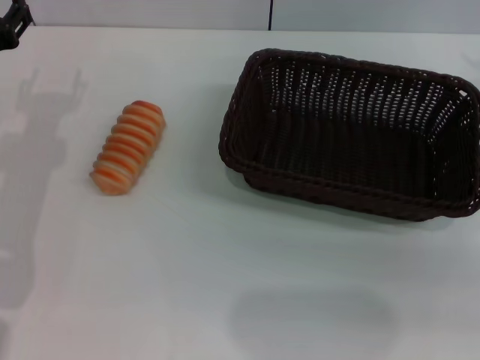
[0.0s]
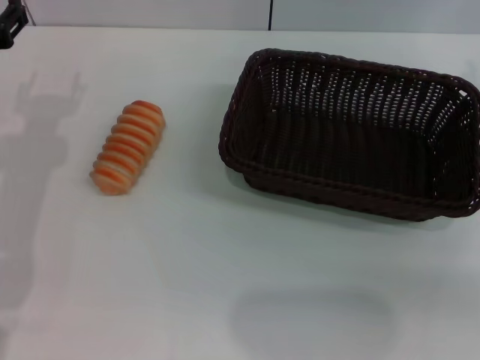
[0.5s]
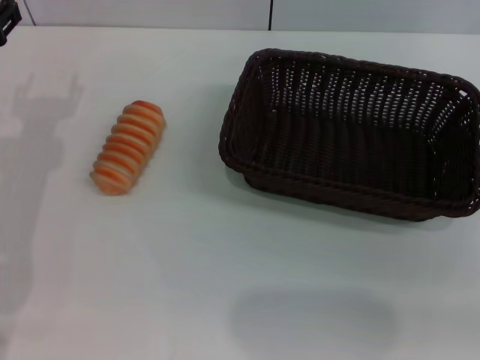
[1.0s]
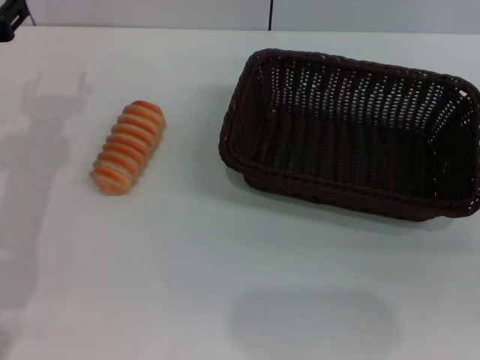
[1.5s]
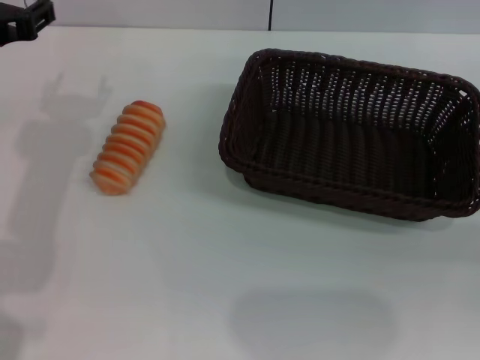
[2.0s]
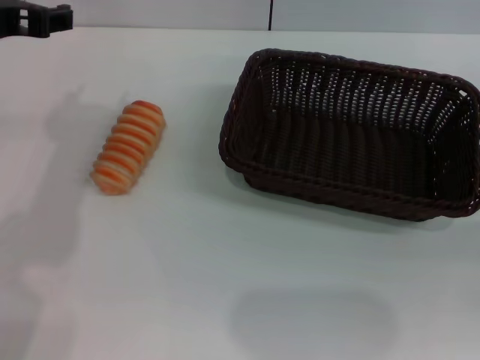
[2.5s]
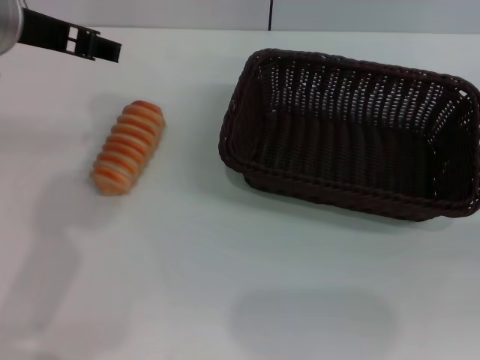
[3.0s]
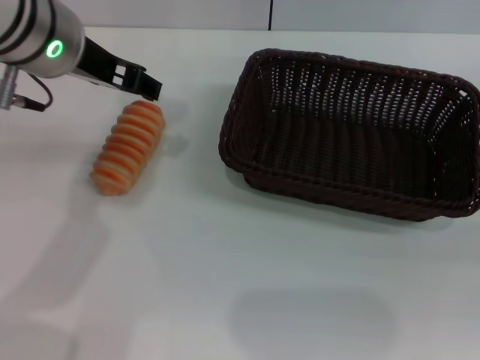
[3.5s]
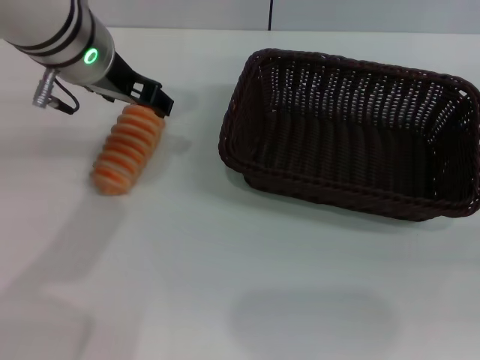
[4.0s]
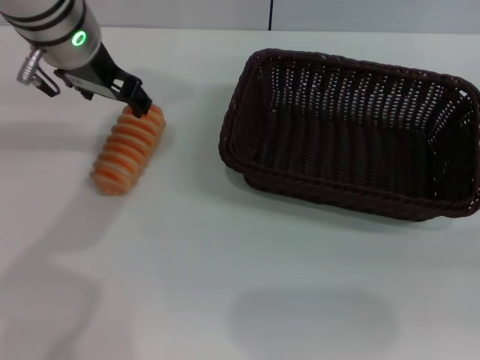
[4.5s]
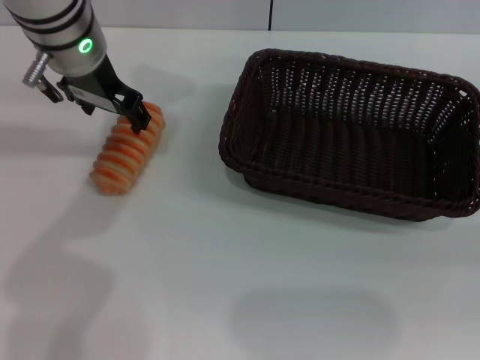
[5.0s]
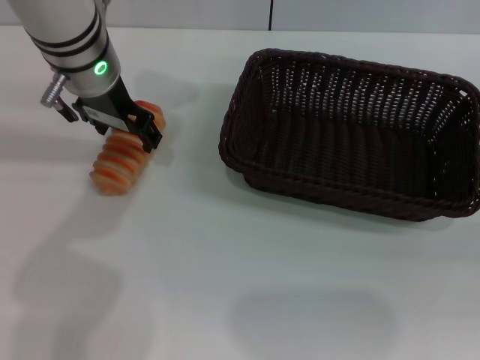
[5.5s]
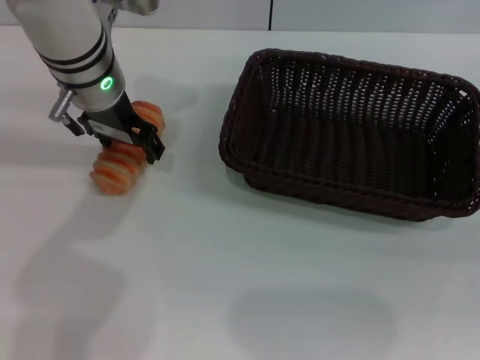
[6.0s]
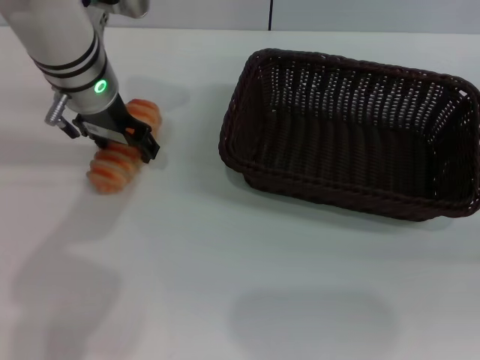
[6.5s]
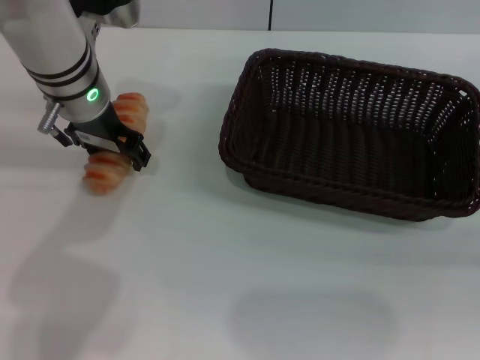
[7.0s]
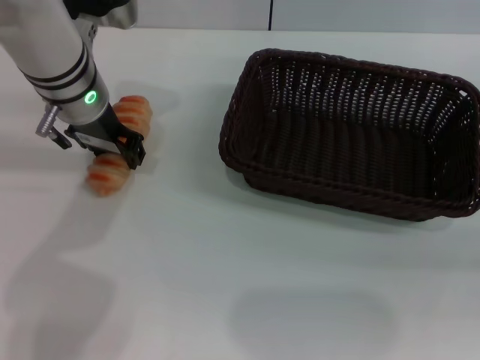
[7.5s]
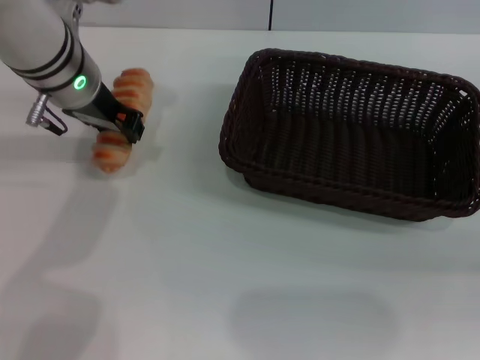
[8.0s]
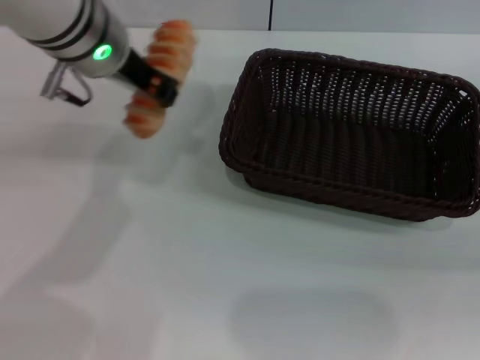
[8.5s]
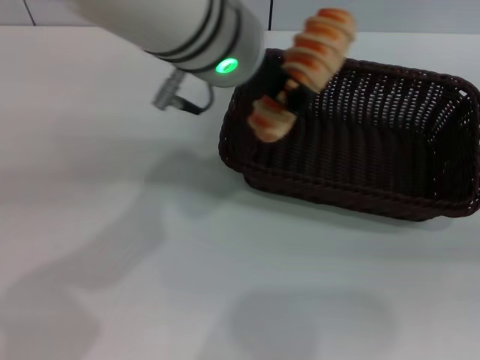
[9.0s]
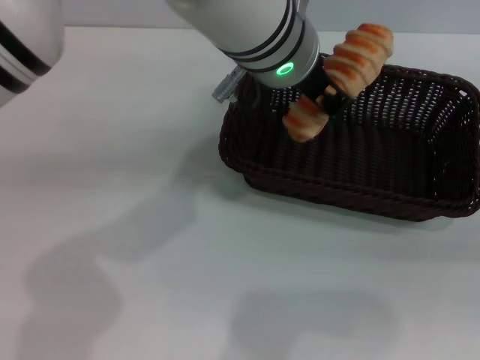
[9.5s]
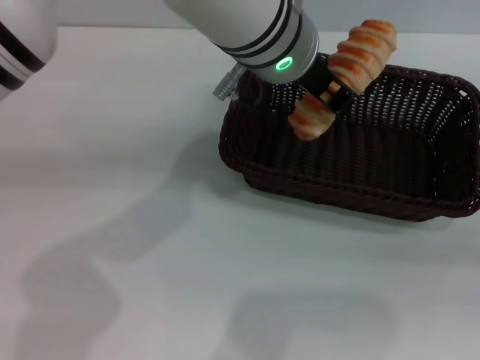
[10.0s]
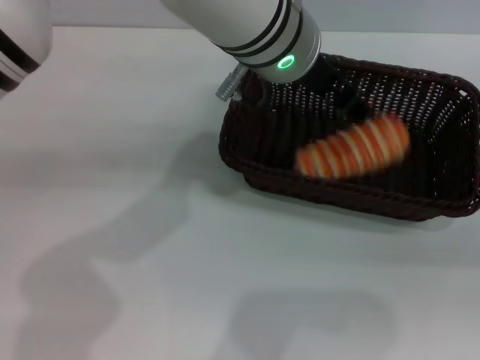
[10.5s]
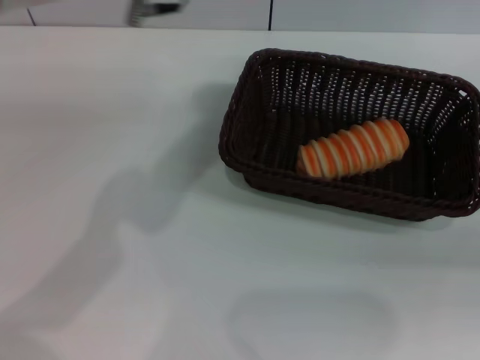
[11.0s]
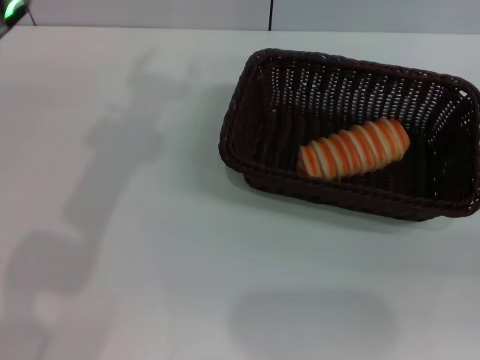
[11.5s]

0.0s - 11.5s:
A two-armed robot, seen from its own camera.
Step, 0.0s - 8.0s: Pick up the long bread with the left gripper.
Step, 8.5s - 10.0s: Place the long bread into the dark basket with the left gripper.
0.0s - 2.0s: The left gripper is displaced upward by some 5 cm.
2.0s - 4.0s: The left gripper goes about 10 cm to the right.
4.0s - 6.0s: The left gripper is displaced downward by some 5 cm.
6.0s - 7.5s: The left gripper closes up.
7.5s - 9.5s: The left gripper travels to the right and upward by roughly 20 cm, and closes its fingers.
9.5s - 11.5s: The left gripper moves to the left, roughly 20 cm, and opens up.
